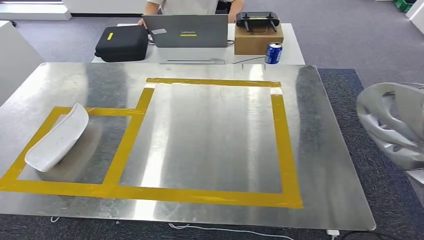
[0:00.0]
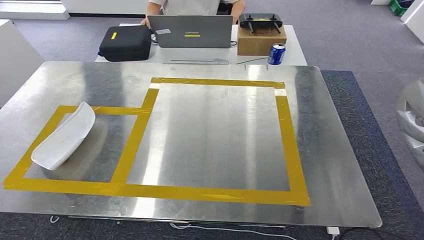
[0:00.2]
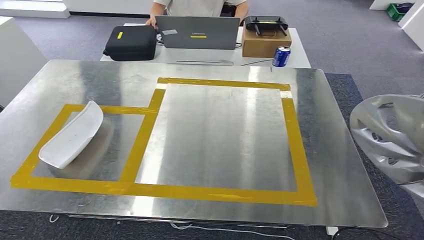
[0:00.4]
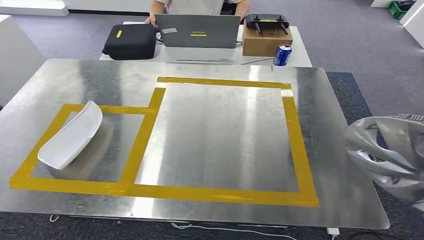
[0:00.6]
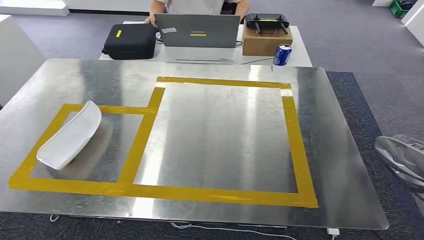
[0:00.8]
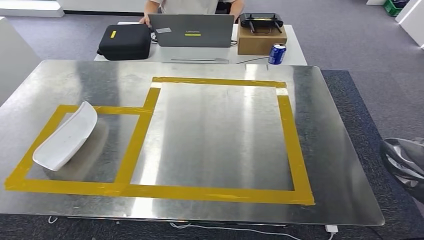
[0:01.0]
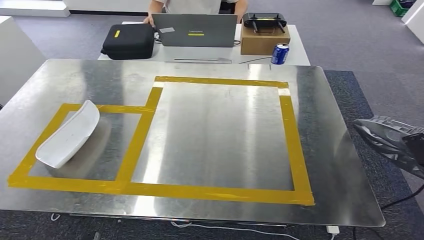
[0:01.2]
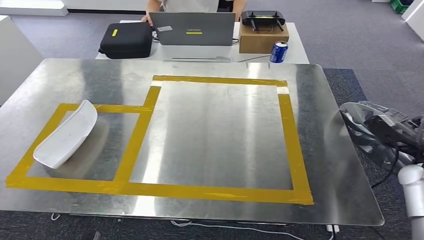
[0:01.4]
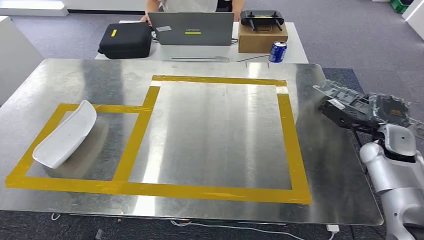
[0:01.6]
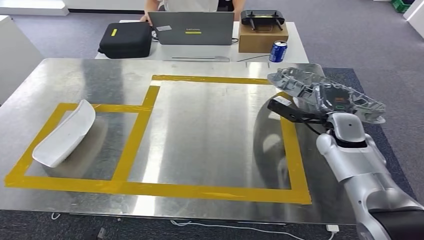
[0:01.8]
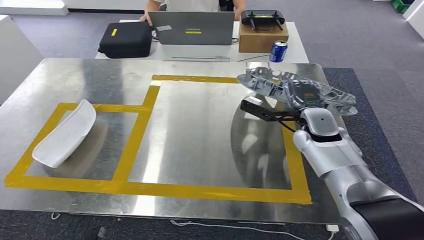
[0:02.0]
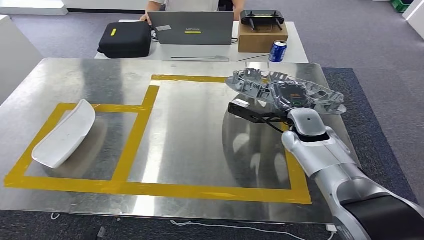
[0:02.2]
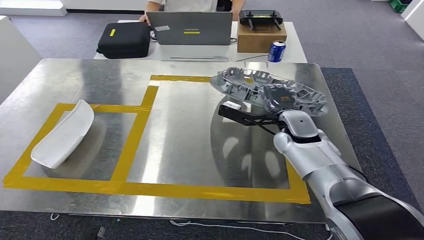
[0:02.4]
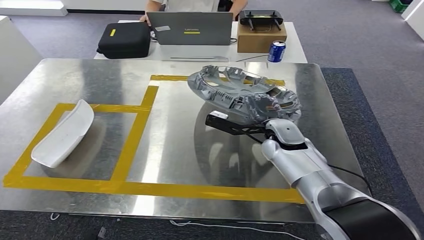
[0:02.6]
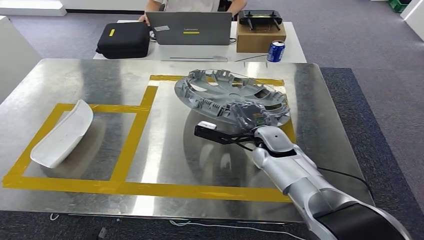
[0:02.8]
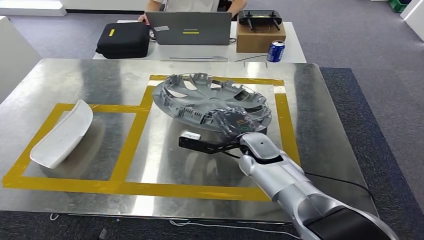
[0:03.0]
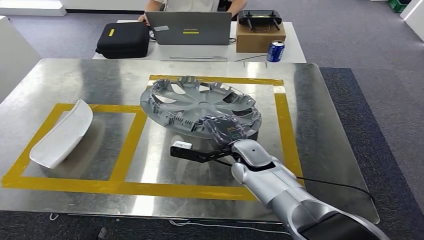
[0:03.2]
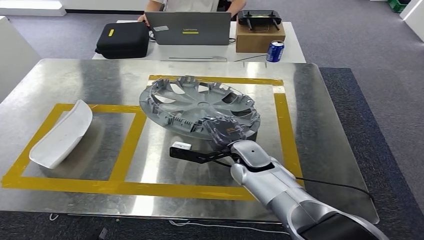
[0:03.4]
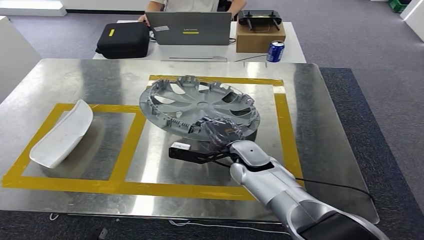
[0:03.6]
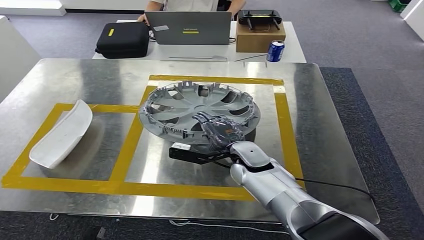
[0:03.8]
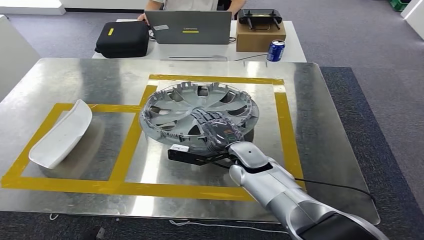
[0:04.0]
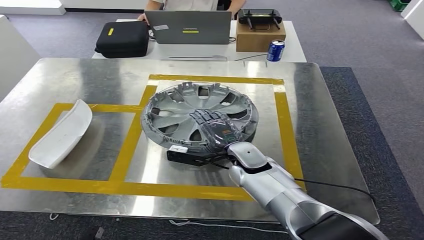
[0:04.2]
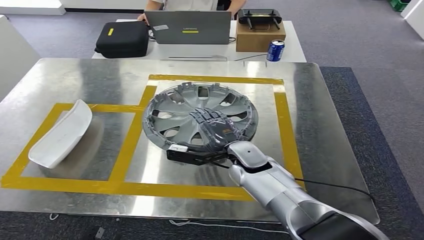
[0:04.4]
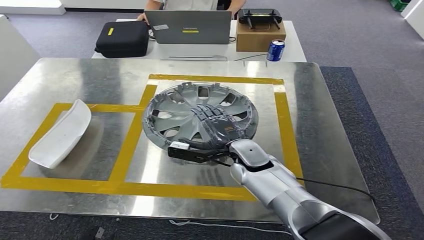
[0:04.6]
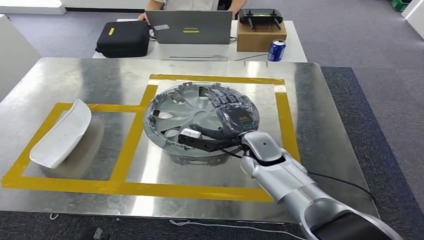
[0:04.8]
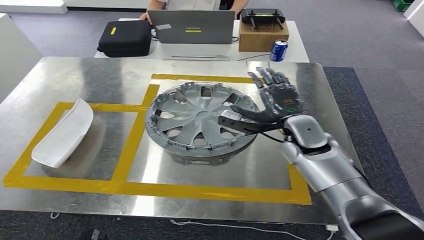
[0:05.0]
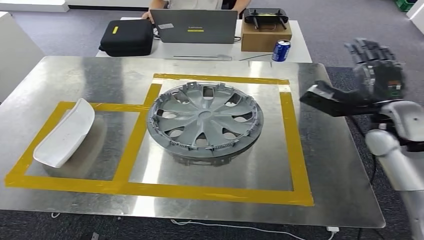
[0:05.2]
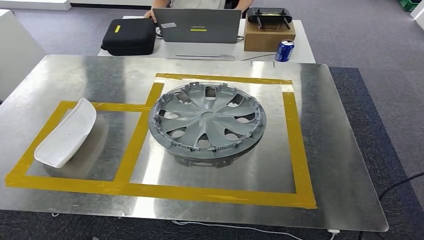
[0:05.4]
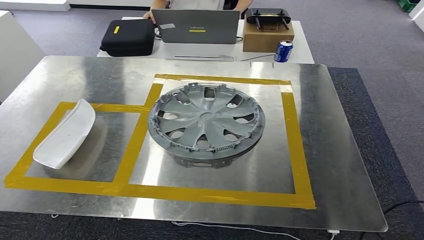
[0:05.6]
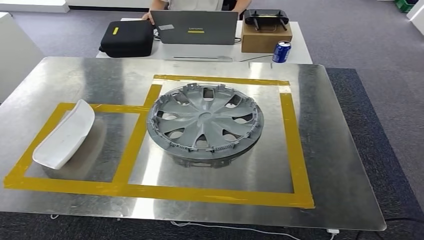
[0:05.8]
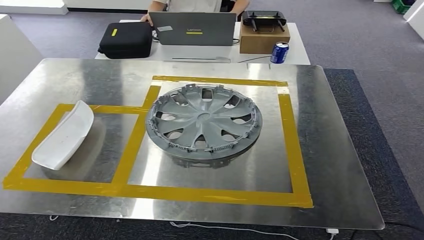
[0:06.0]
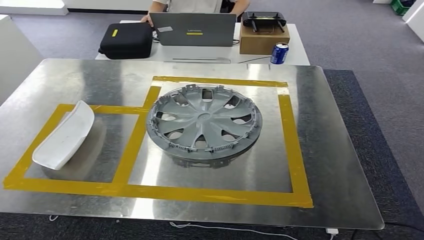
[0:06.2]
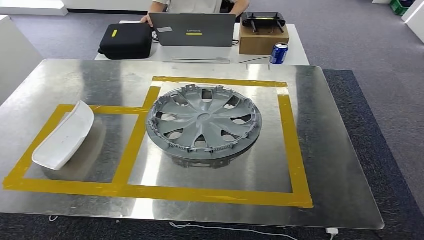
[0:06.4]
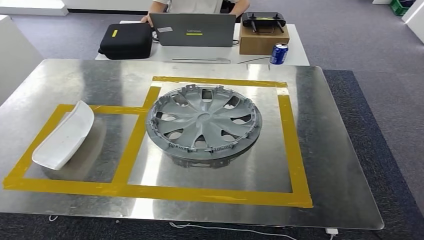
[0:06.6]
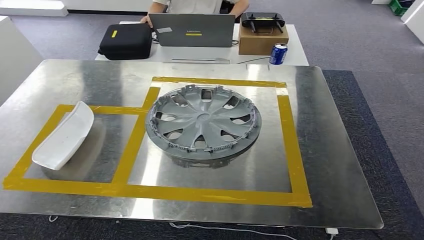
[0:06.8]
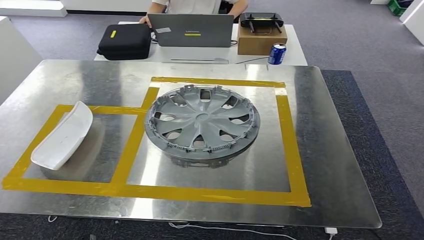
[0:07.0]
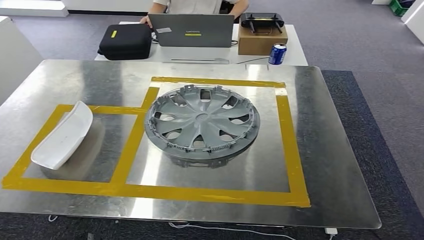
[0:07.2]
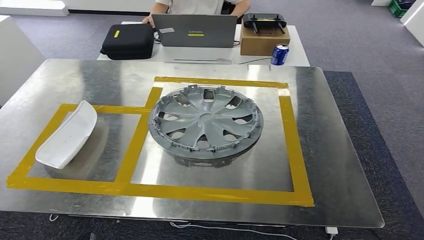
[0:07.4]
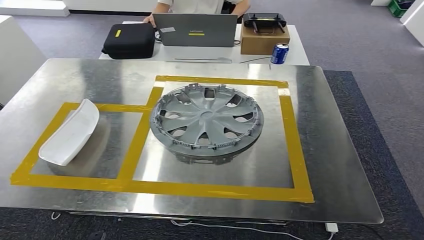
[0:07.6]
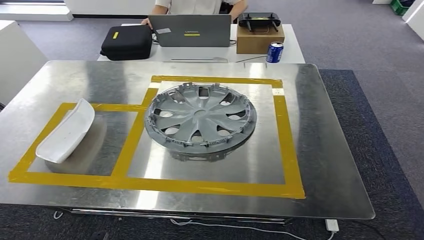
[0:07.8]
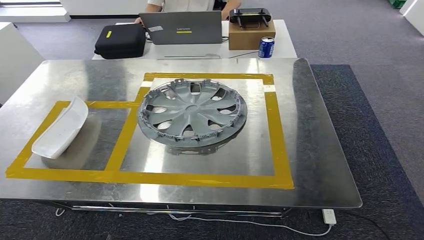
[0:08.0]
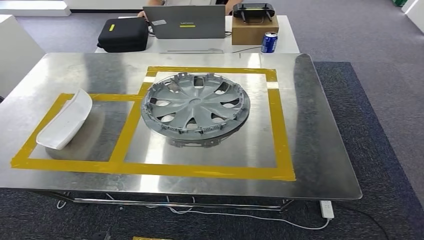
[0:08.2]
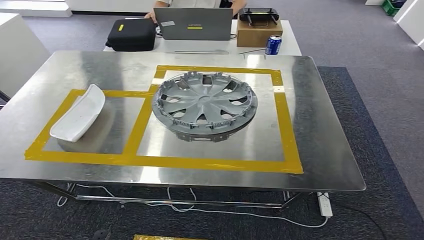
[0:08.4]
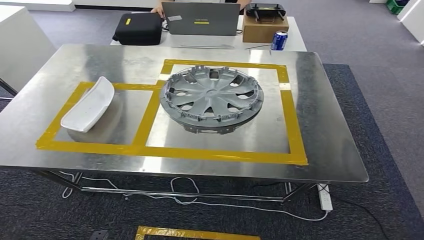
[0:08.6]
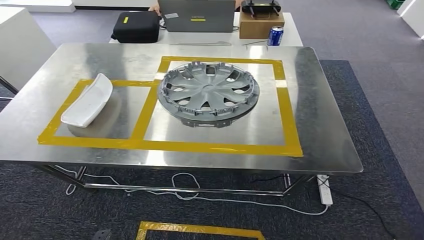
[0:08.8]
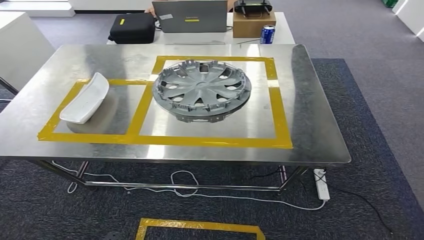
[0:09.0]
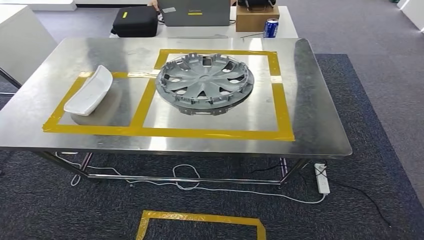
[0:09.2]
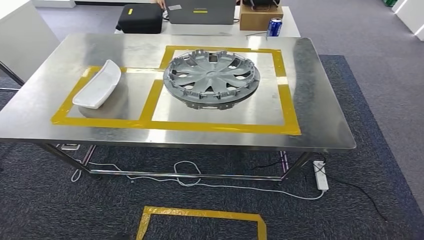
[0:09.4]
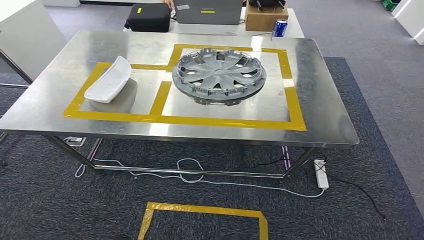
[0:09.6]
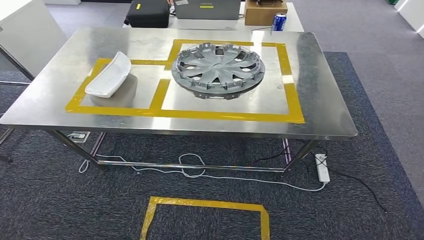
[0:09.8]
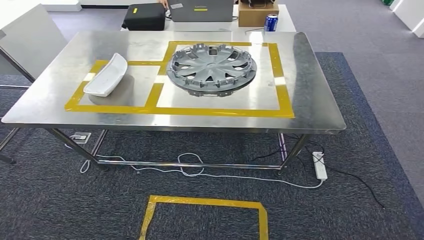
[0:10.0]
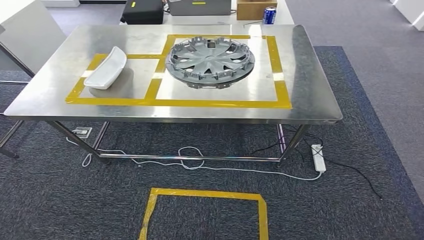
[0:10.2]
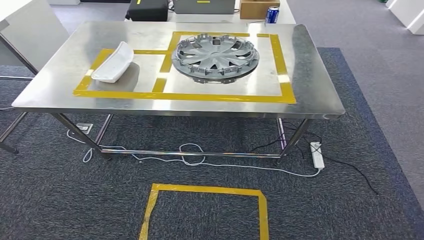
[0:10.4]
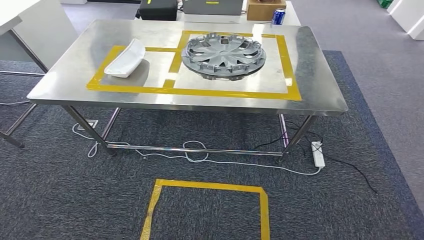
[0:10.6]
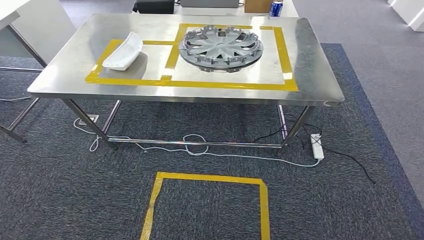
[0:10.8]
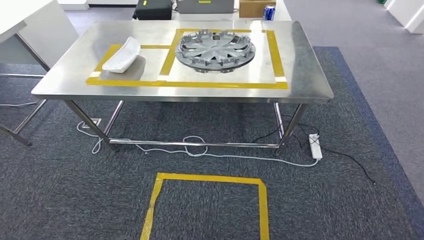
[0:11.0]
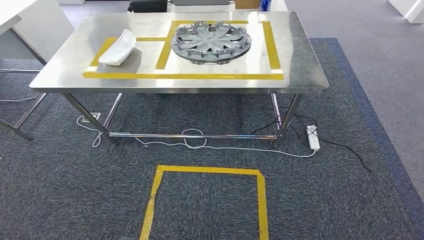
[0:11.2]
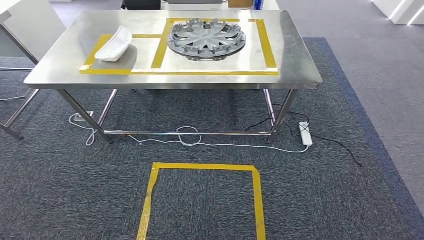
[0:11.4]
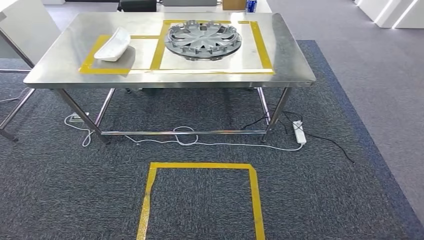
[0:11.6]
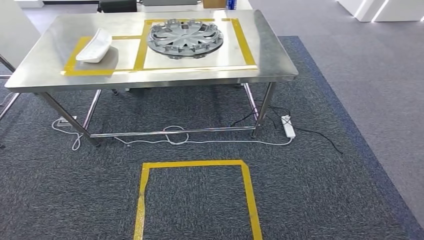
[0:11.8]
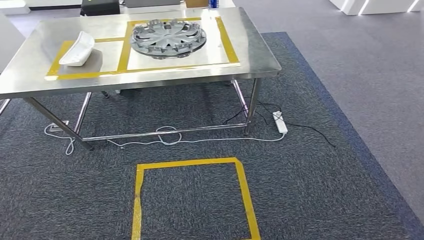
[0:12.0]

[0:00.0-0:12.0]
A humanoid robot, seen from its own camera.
Step, 0:00.0 to 0:05.4: Insert the small component into the corresponding slot on the workbench.
0:03.0 to 0:04.4: The hands move only a little.
0:04.4 to 0:06.0: The right hand heads to the right, backward and upward, covering approximately 60 cm. The left hand travels to the right by some 5 cm.
0:06.0 to 0:07.6: The right hand shifts about 50 cm downward and to the left.

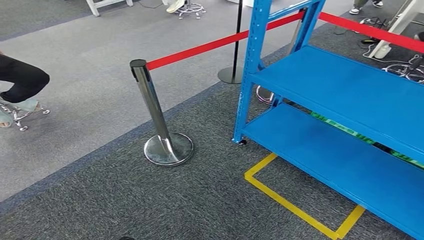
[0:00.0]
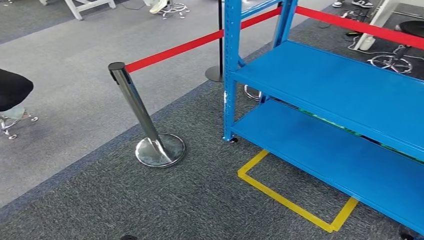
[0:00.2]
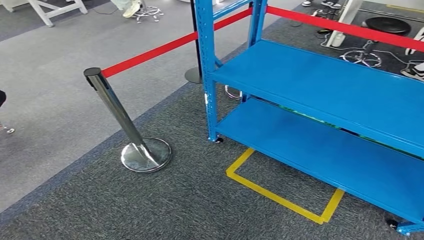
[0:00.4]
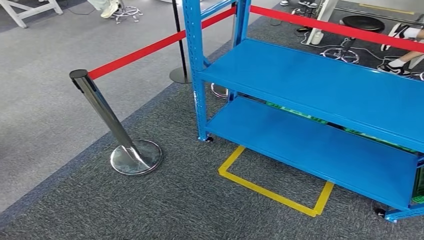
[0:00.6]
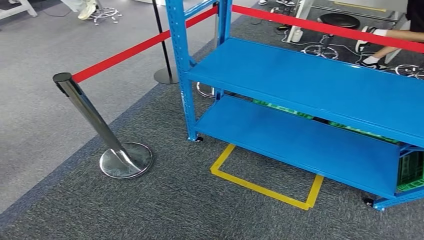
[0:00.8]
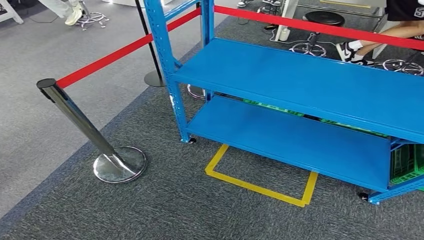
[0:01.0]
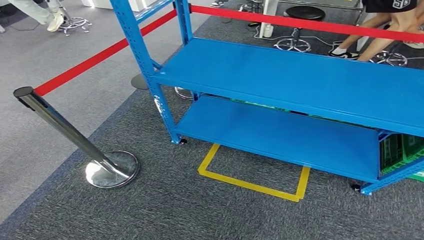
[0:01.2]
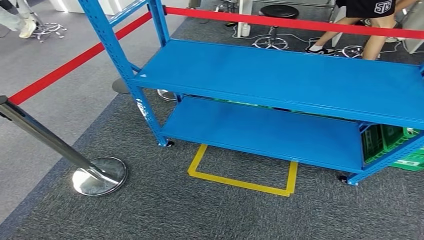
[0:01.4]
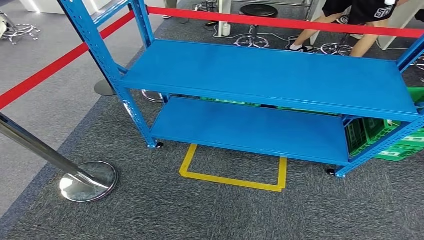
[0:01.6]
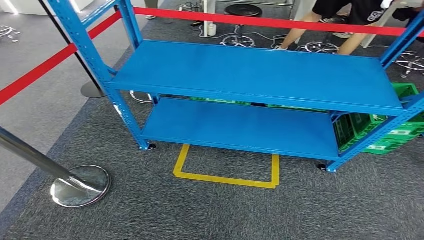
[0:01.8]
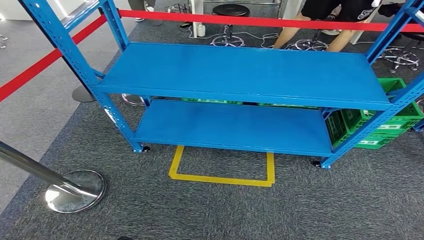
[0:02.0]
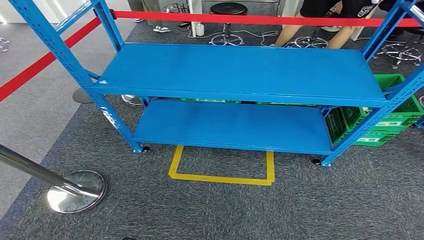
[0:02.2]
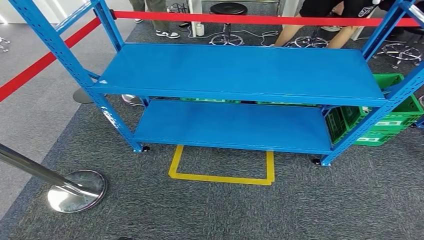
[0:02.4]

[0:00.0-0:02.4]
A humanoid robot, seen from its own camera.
Step, 0:00.0 to 0:02.4: Return to the initial position at the workbench.
